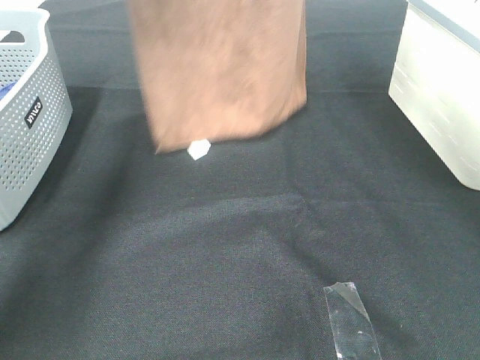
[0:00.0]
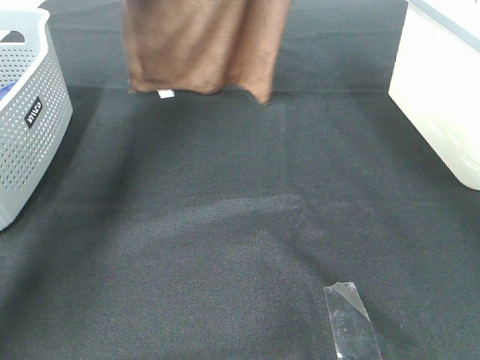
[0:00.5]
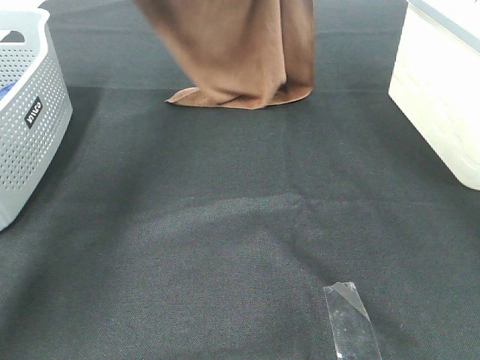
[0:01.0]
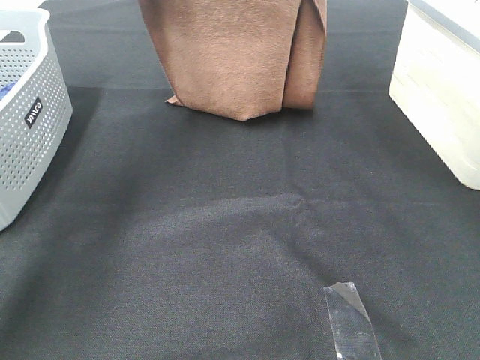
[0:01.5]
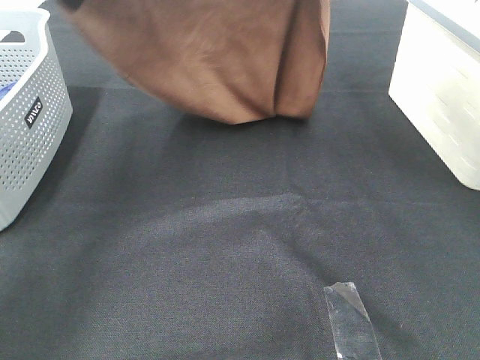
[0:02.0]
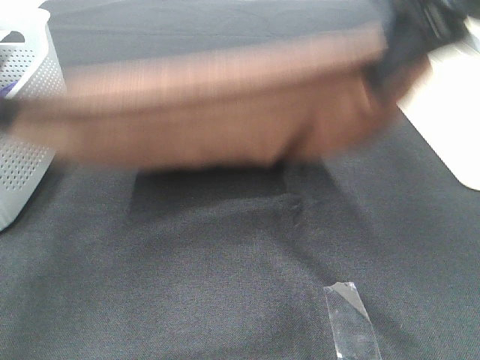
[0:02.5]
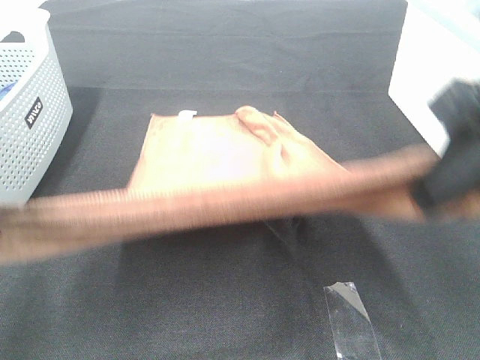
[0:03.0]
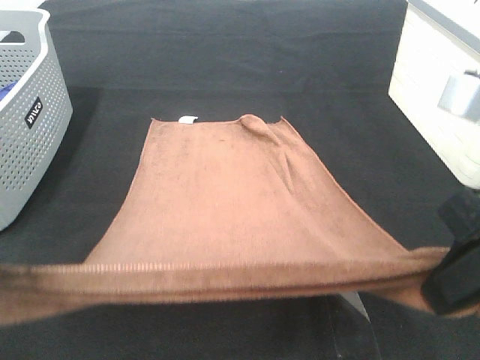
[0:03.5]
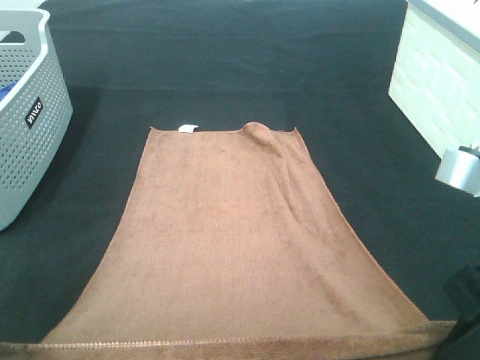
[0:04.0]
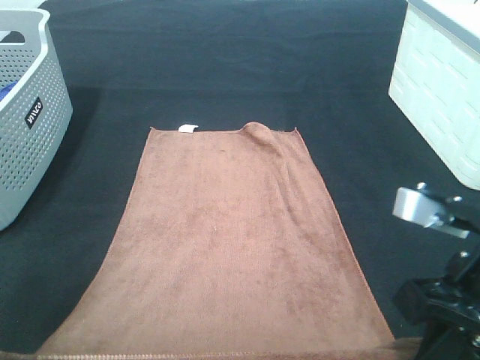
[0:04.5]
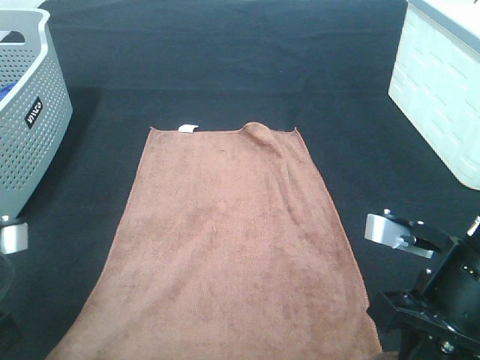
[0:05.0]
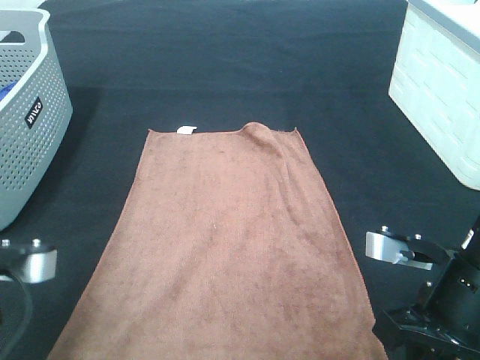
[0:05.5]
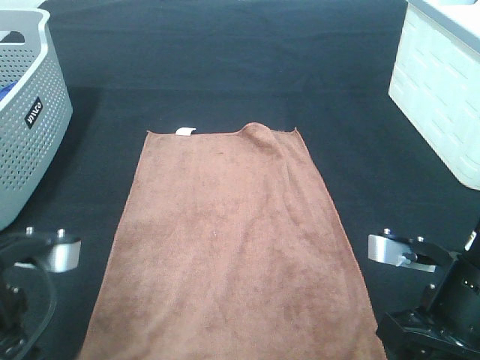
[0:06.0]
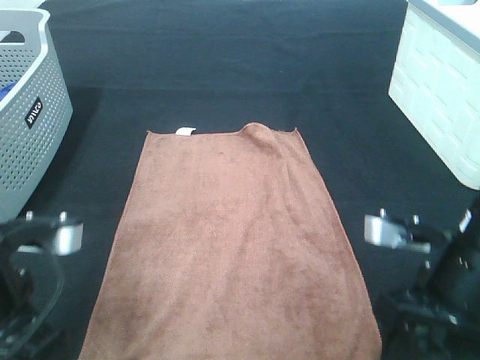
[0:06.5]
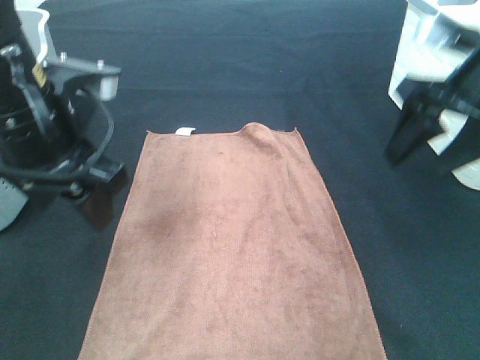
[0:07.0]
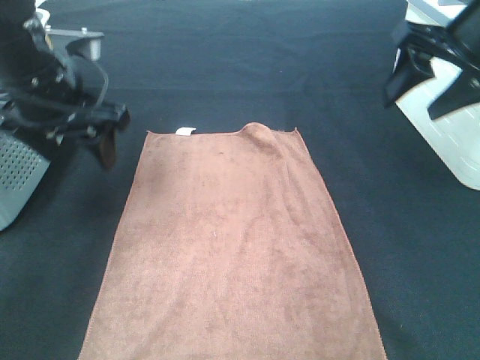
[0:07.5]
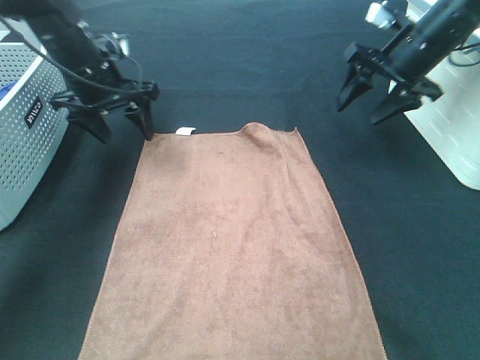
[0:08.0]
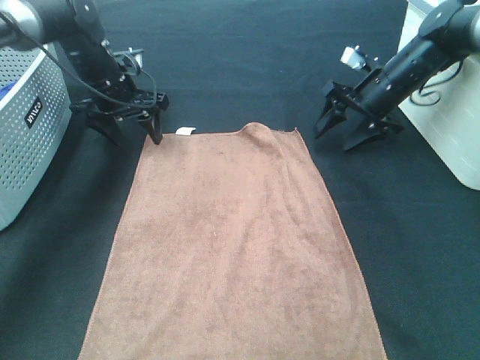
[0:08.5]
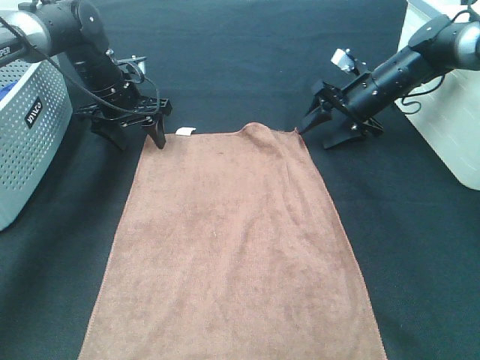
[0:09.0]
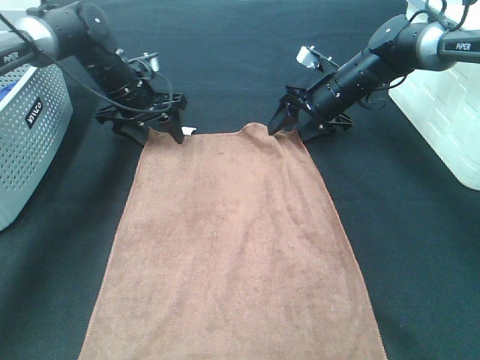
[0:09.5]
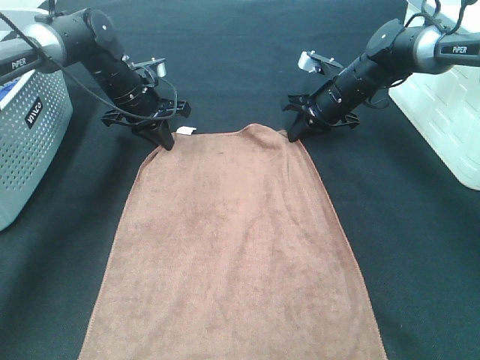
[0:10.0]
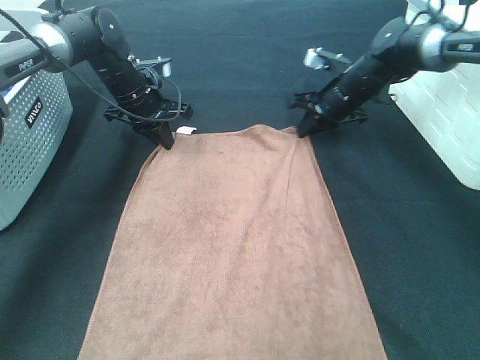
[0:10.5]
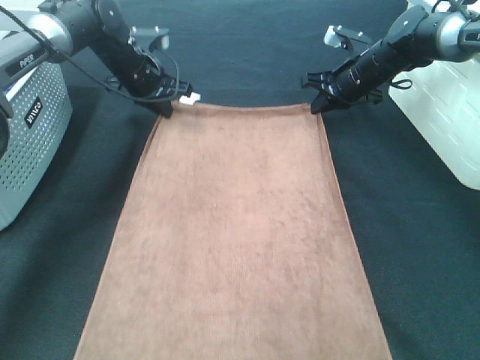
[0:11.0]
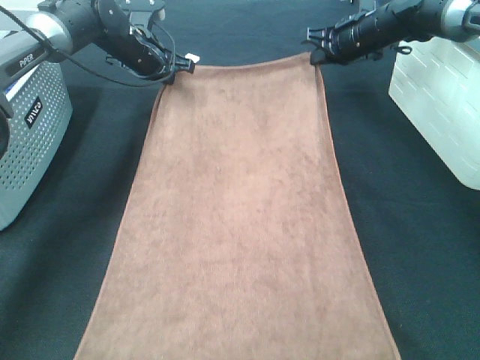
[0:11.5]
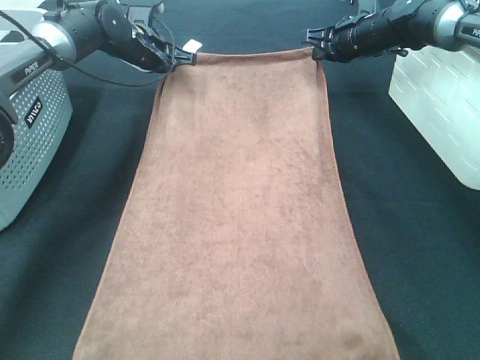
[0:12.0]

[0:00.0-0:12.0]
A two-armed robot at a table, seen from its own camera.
Task of the whole recording: Remove the towel and place it.
Step, 0:00.0 to 0:02.5: Left hand: spread the brown towel flat on the table.
Step, 0:00.0 to 0:02.5: Right hand: spread the brown towel flat on the table.
Step, 0:03.0 to 0:08.0: Left hand:adjust the brown towel.
Step, 0:03.0 to 0:08.0: Right hand:adjust the brown towel.
0:00.0 to 0:02.0: The left gripper moves backward and downward, roughly 15 cm; the right gripper moves downward and backward, about 10 cm.
0:02.0 to 0:04.0: The grippers both shift backward and downward by some 30 cm.
0:04.0 to 0:06.0: The right gripper heads downward, covering roughly 10 cm, and opens up. The left gripper moves downward, about 5 cm, and opens.
0:06.0 to 0:08.0: Both grippers travel together forward, some 30 cm.
0:08.0 to 0:10.0: The right gripper moves downward, to the left and forward, roughly 15 cm, and closes its fingers. Meanwhile the left gripper goes roughly 10 cm downward and forward, and closes up.
0:10.0 to 0:12.0: The right gripper travels upward and forward by about 10 cm, while the left gripper travels forward by about 5 cm.

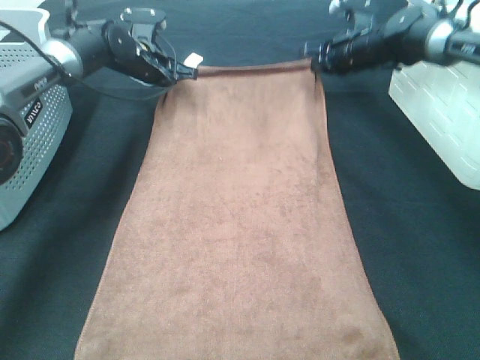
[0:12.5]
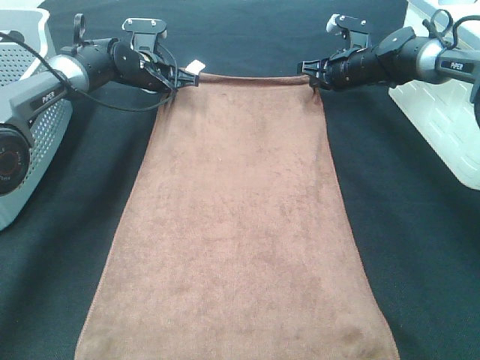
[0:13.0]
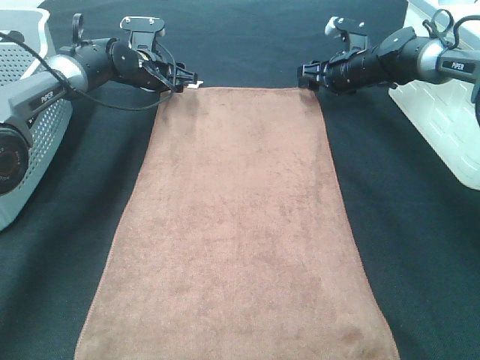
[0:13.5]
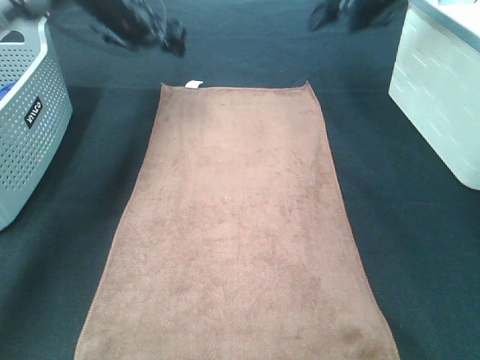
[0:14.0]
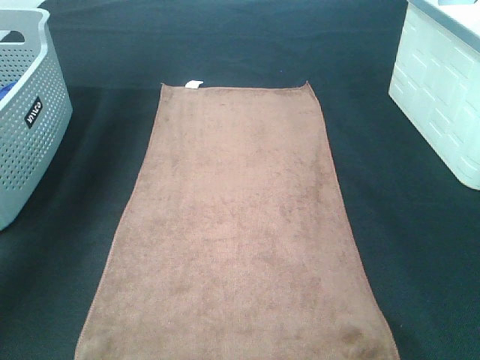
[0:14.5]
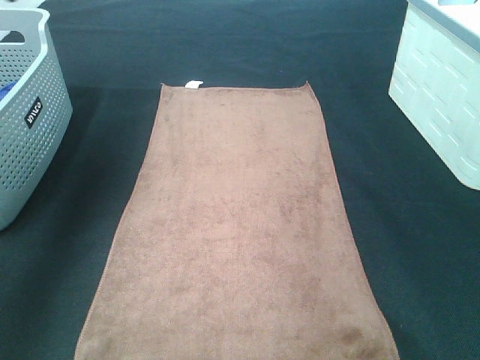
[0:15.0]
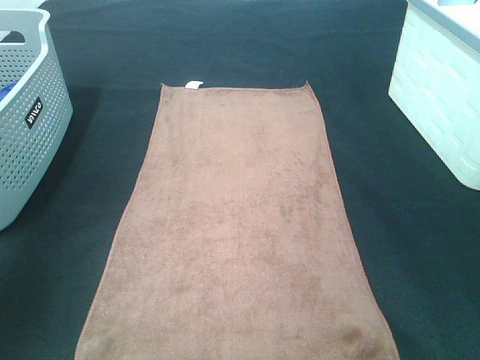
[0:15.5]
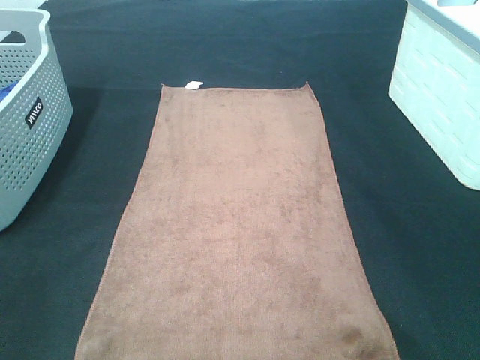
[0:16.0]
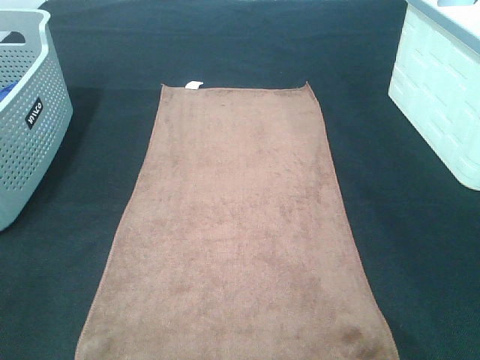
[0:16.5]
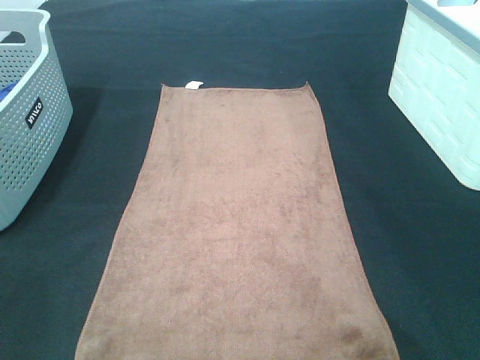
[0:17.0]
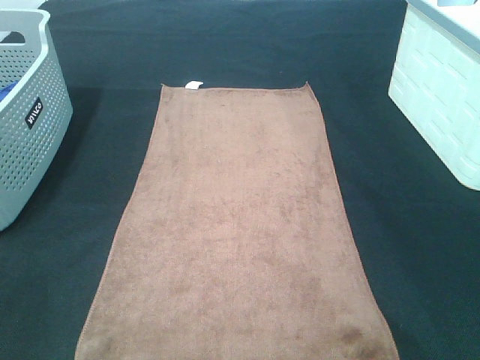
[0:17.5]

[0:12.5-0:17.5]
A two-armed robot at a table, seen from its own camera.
Task of the whole recording: Remove the towel and place it.
0:12.5 to 0:15.0: Both grippers move upward and backward, some 40 cm. The right gripper opens up, while the left gripper opens.
0:15.0 to 0:17.5: The left gripper goes approximately 35 cm backward. Meanwhile the right gripper heads backward and downward, covering some 30 cm.

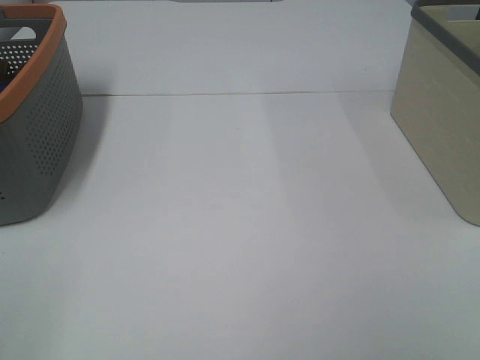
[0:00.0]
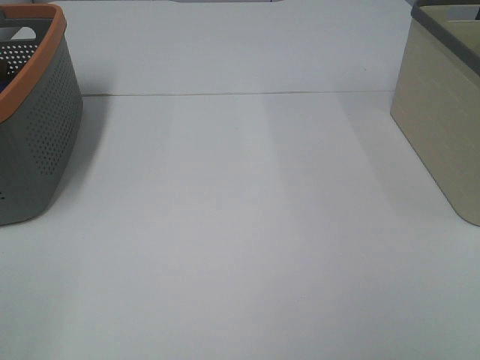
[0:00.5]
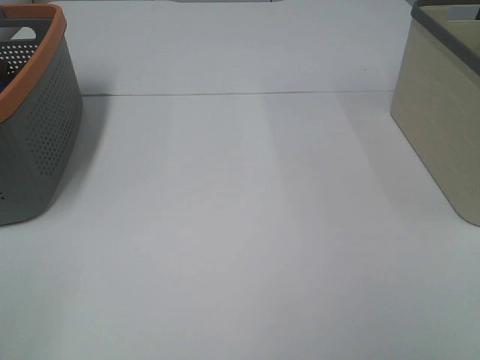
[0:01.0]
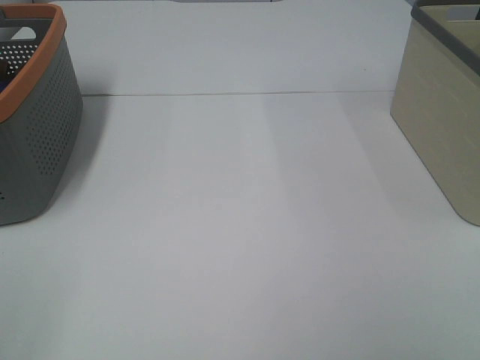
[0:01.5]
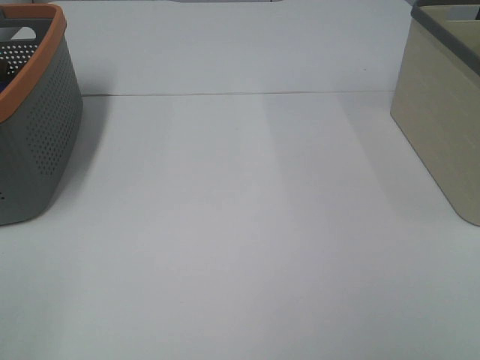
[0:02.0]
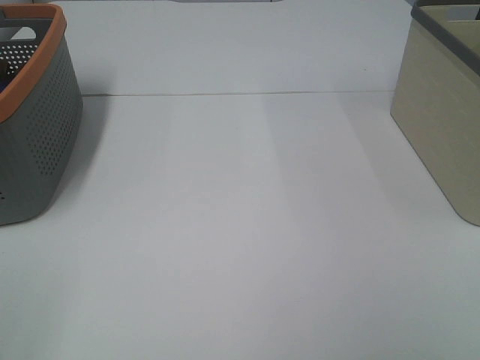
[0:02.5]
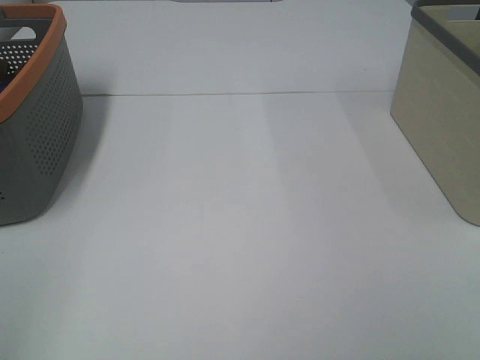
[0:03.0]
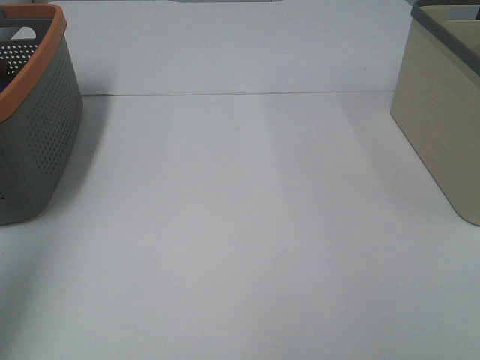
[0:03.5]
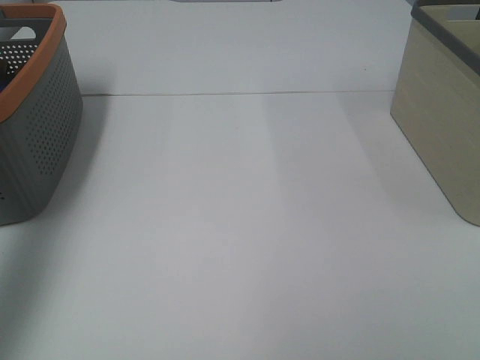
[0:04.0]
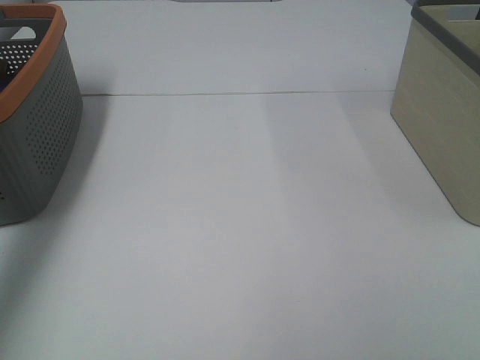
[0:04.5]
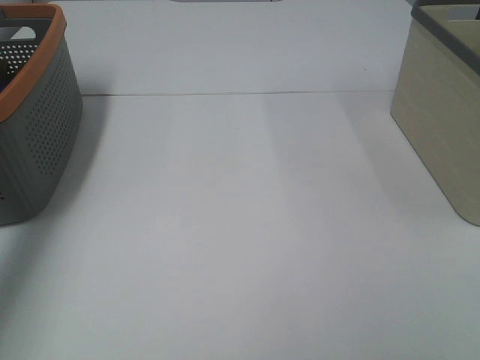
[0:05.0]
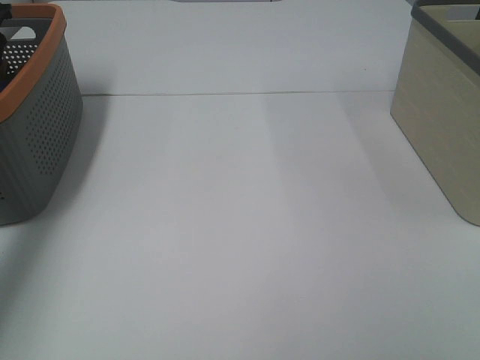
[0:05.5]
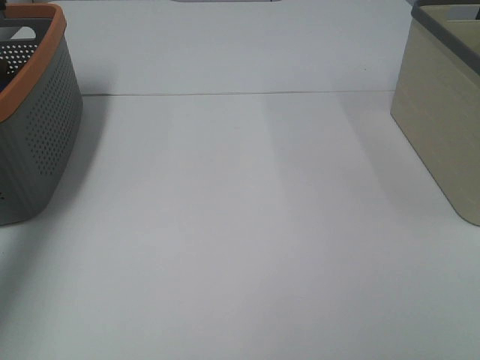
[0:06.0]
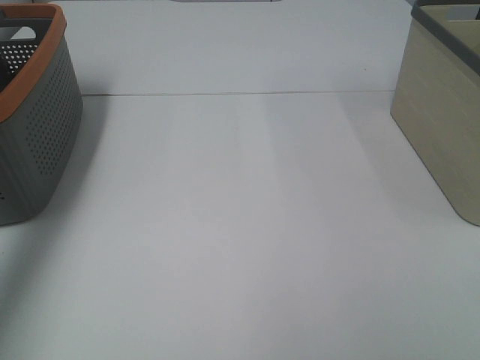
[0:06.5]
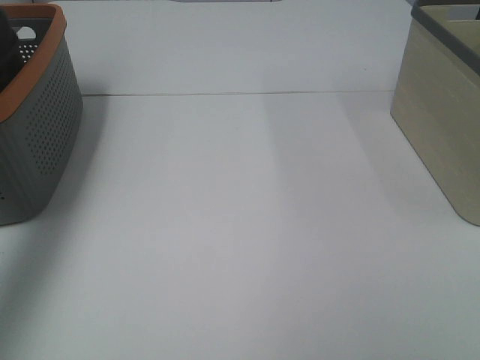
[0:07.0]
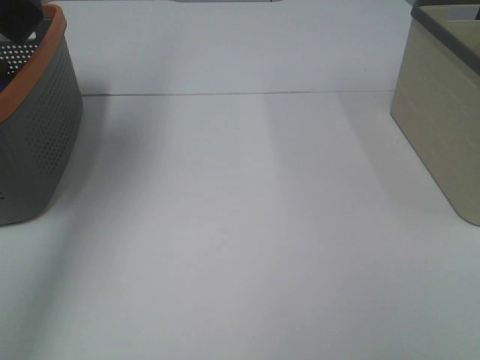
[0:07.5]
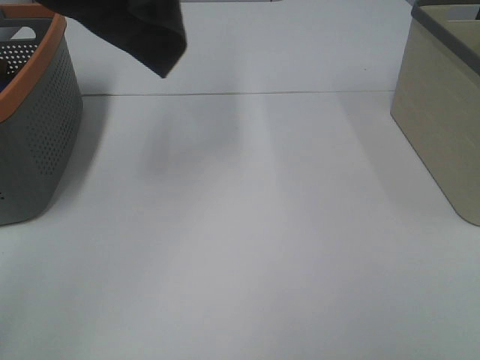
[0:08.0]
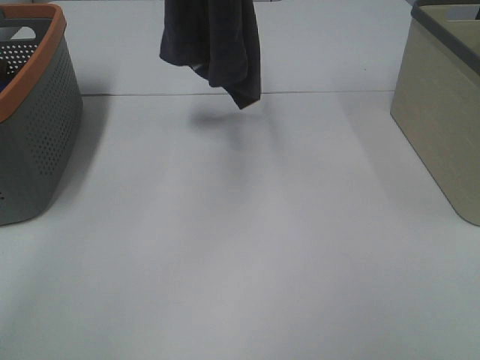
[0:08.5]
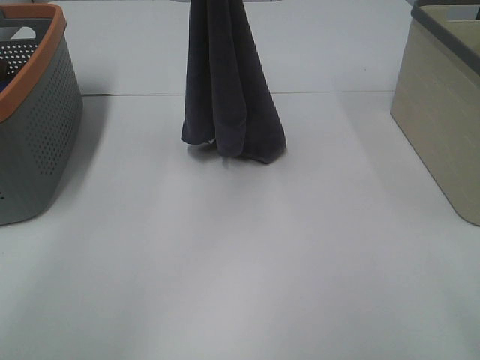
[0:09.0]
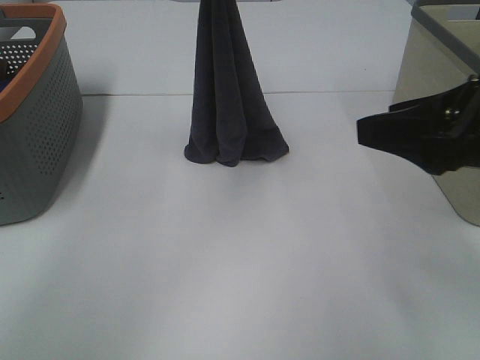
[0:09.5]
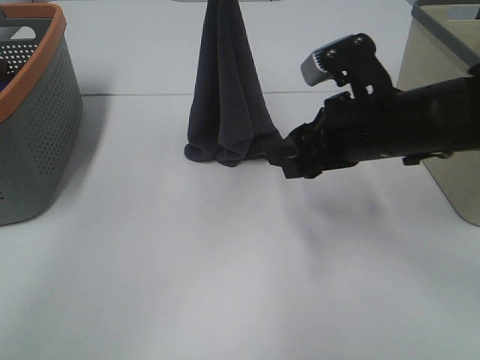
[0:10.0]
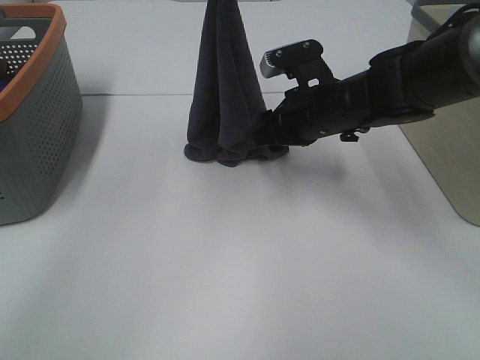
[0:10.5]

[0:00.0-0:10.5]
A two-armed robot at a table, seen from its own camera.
Task of the whole recording: Remove the towel and place it.
0:00.0 to 0:02.0: Both grippers stay about where they are.
0:02.0 to 0:04.0: The left gripper moves forward, approximately 30 cm.
0:06.5 to 0:08.5: The left gripper goes approximately 25 cm to the right.
0:08.5 to 0:10.5: The right gripper is displaced forward and to the left by some 40 cm; the left gripper goes approximately 10 cm downward.
